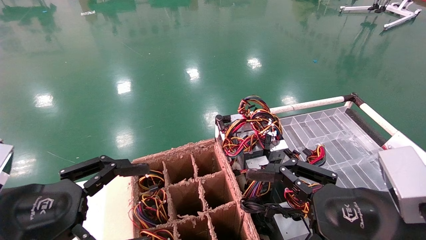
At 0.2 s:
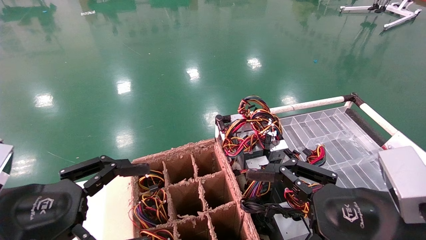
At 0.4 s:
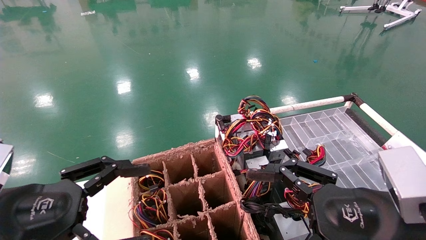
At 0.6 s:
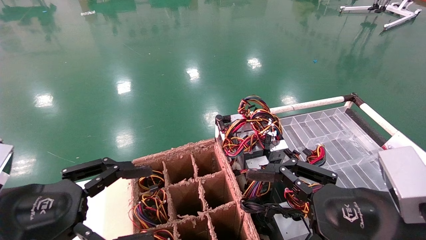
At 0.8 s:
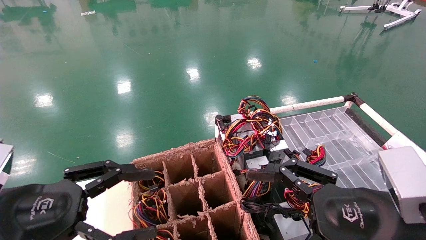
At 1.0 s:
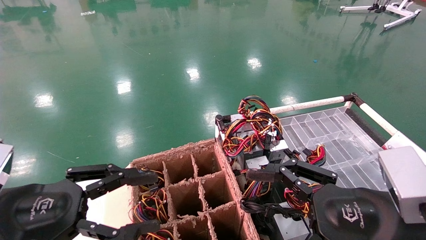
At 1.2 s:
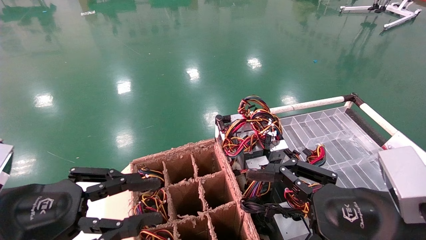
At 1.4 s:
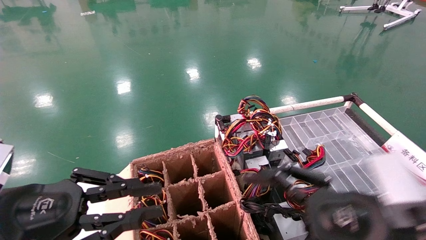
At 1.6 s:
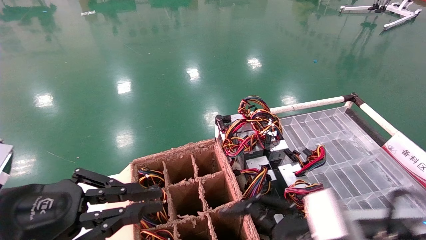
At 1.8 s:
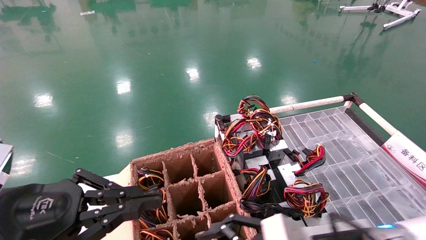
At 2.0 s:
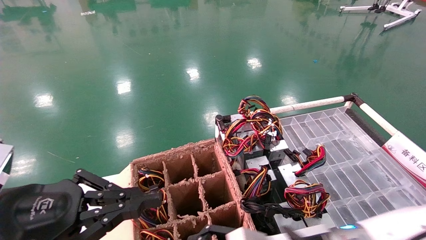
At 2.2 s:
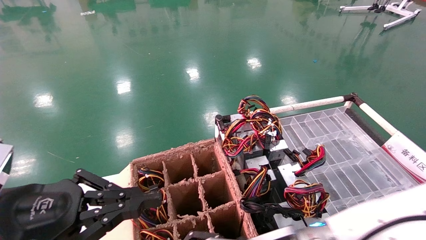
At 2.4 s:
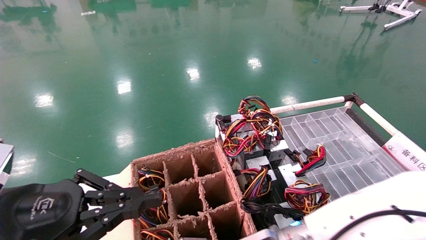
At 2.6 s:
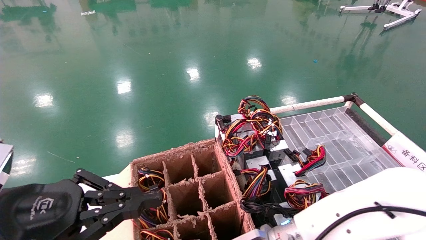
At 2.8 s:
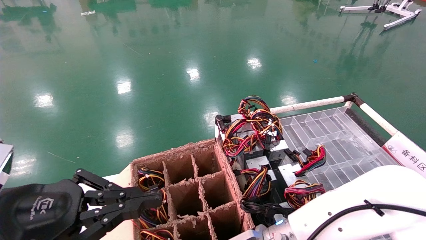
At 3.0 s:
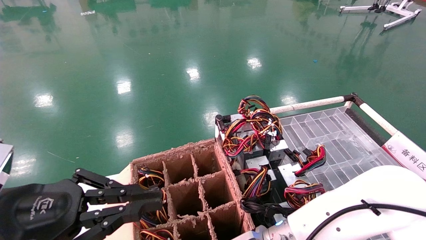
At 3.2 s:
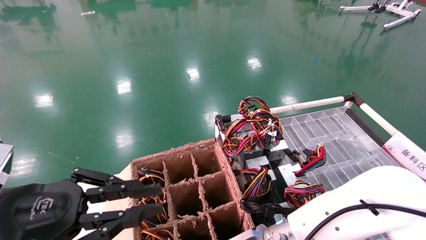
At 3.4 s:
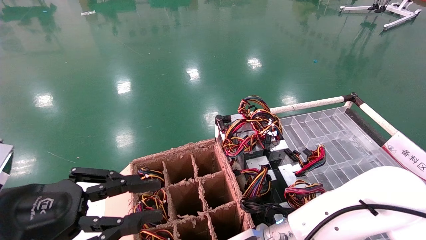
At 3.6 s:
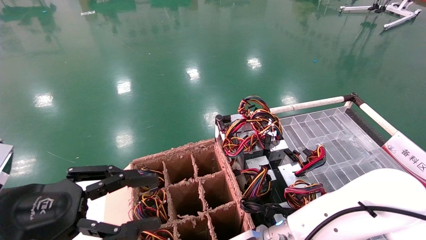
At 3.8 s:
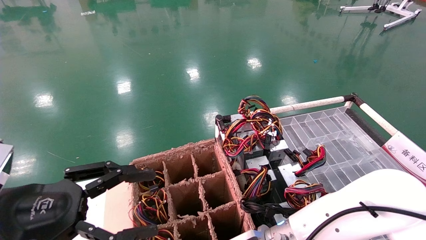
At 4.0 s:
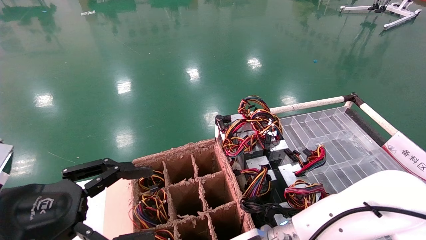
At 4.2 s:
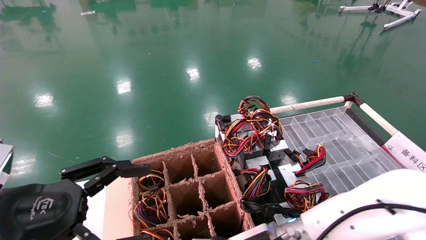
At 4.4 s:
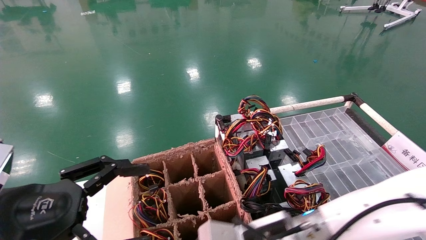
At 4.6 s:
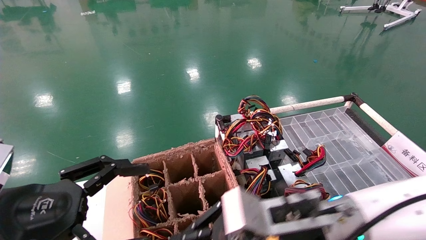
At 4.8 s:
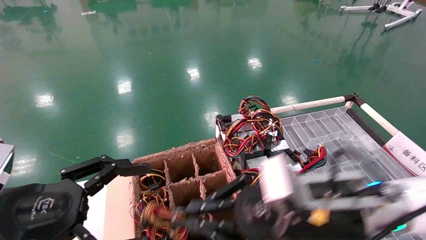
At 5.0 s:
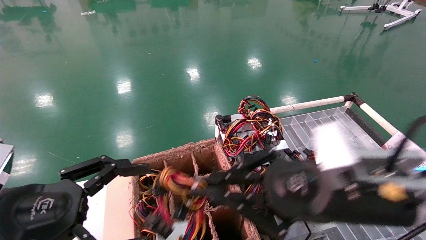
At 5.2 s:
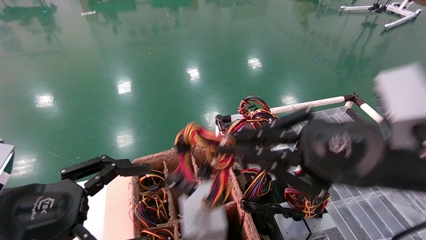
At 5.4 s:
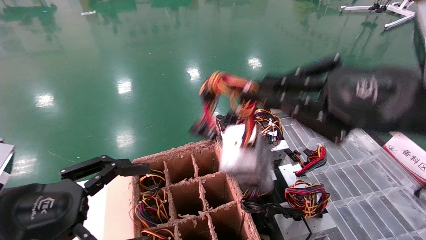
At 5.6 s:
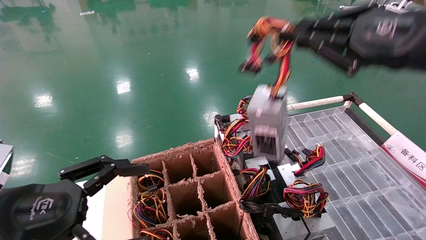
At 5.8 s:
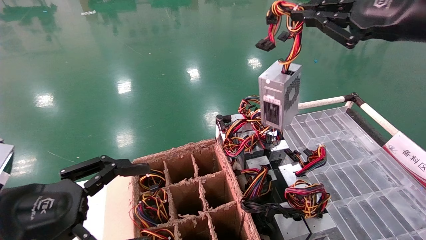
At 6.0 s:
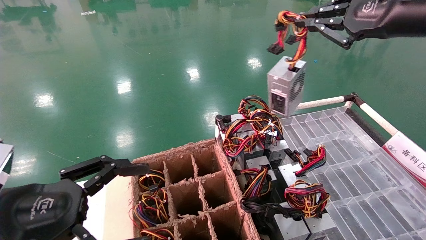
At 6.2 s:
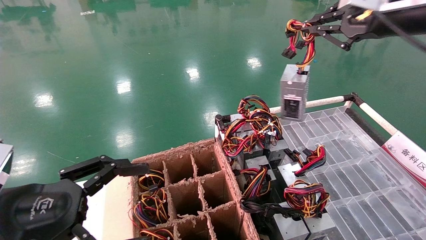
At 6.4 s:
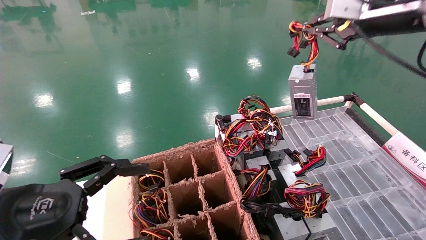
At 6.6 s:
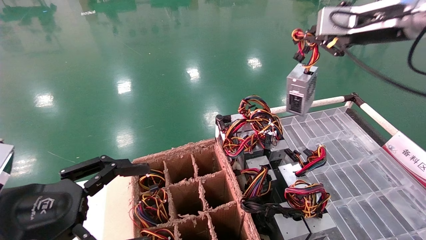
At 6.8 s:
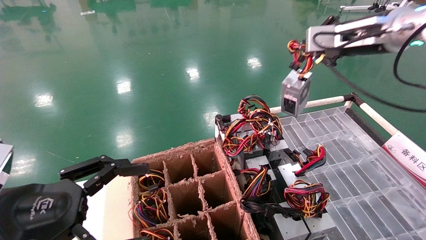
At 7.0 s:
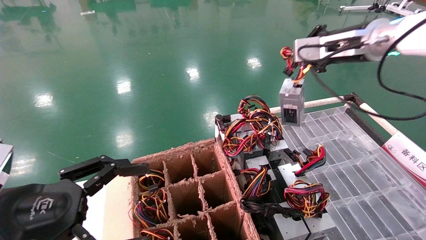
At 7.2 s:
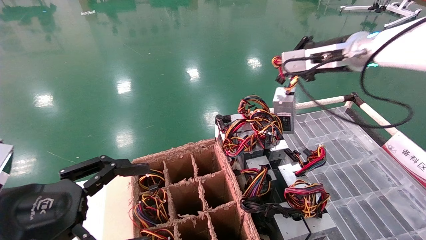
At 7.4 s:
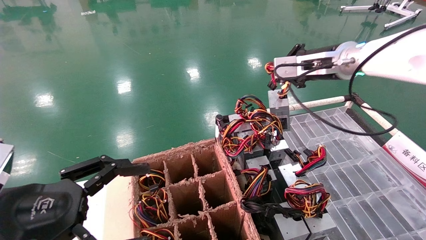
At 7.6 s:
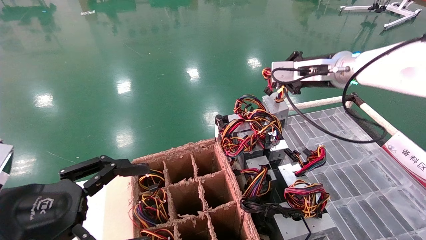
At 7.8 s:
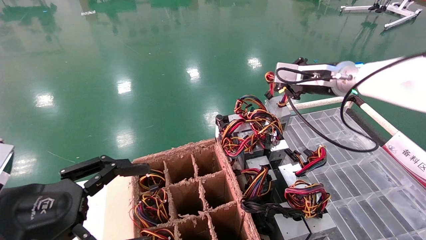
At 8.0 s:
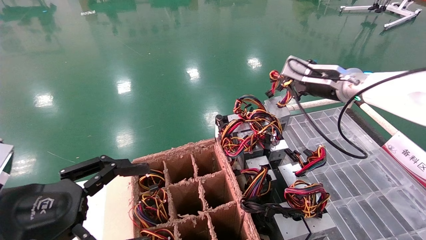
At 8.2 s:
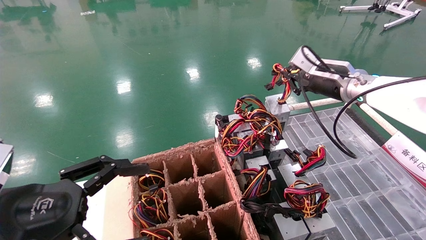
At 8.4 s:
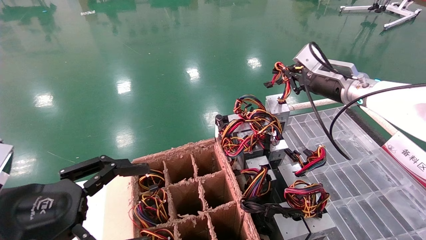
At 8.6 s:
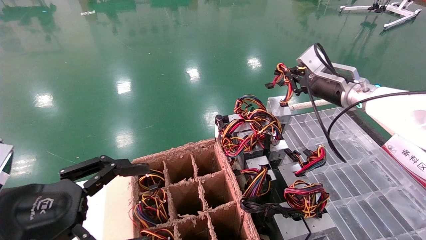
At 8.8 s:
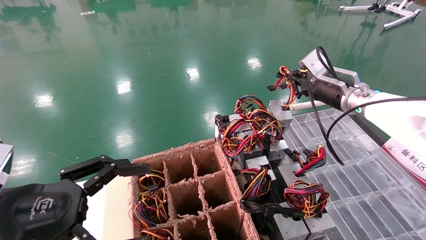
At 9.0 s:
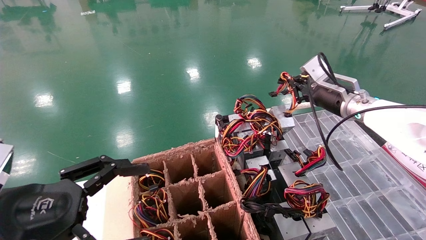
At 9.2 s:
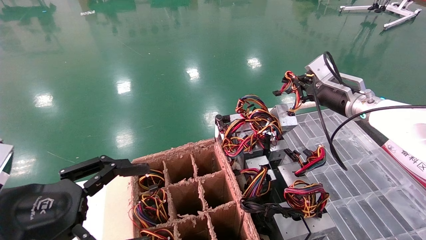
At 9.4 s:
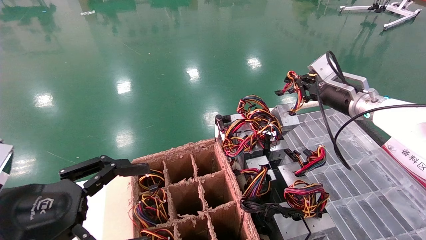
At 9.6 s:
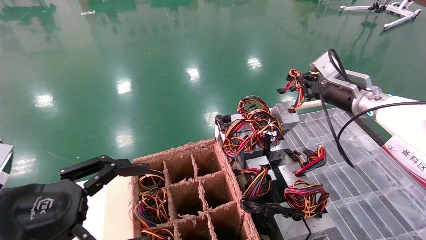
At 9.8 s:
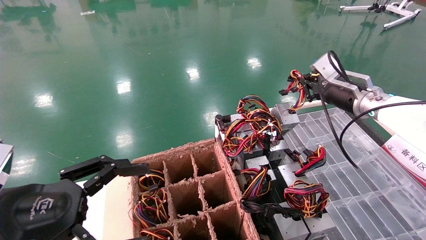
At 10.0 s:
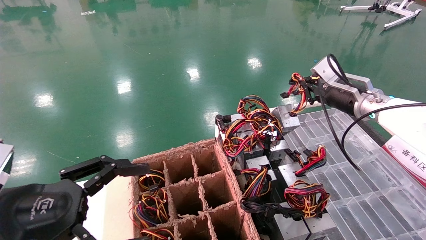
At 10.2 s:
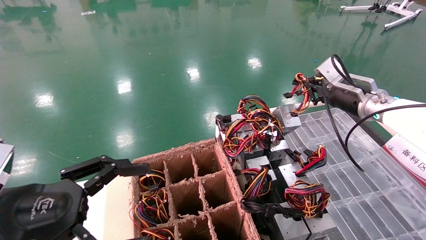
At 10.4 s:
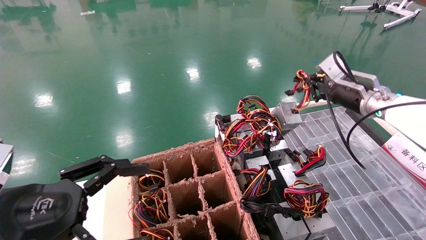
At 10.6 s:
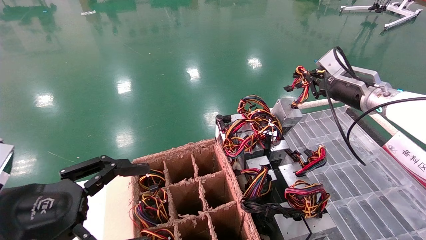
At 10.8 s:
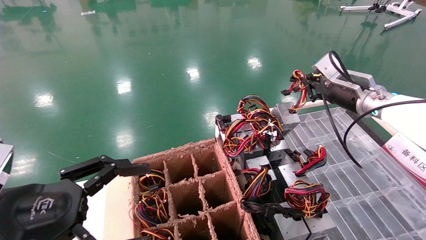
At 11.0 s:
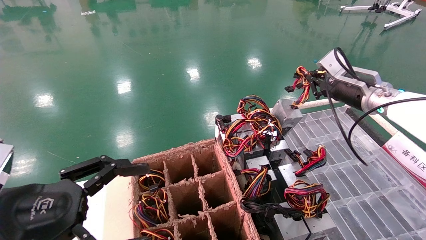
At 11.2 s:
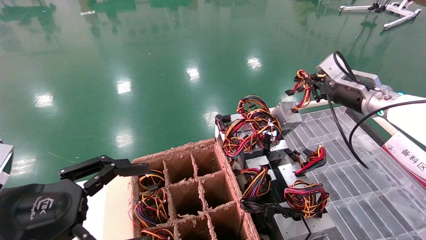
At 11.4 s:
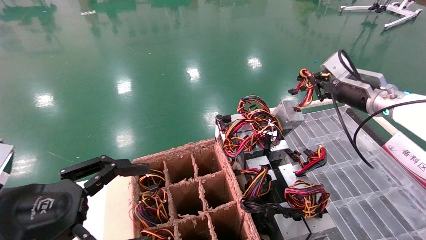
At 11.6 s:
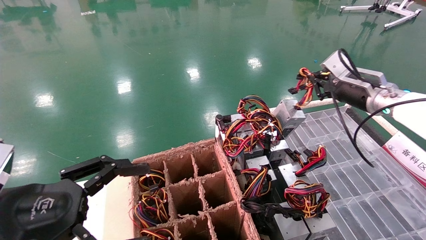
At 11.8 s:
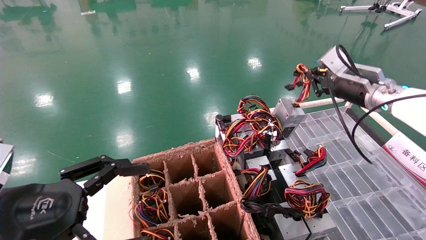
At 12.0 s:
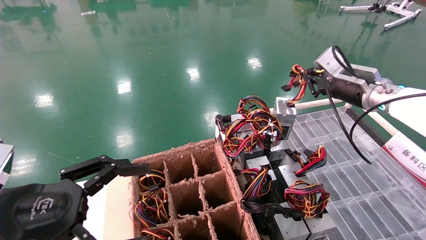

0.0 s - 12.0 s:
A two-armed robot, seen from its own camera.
Step, 2.2 s - 4.0 s: Grab and lift the power supply from the large box.
0.0 s - 1.6 s: The left gripper closes. Meanwhile the right gripper changes place by roughly 5 cm.
1.6 s - 3.0 s: The right gripper shifts approximately 15 cm to the left, forward and downward.
3.0 s - 4.4 s: The left gripper opens up; the right gripper ends up about 5 cm from where it was, and closes.
4.4 s - 6.0 s: The right gripper moves upward and to the right, about 35 cm.
6.0 s - 7.6 s: The right gripper goes about 15 cm forward and downward.
7.6 s - 9.0 s: The right gripper shifts roughly 5 cm downward.
9.0 s - 10.4 s: There are only small adjustments of the grippers.
10.4 s - 12.0 s: Neither gripper changes place.

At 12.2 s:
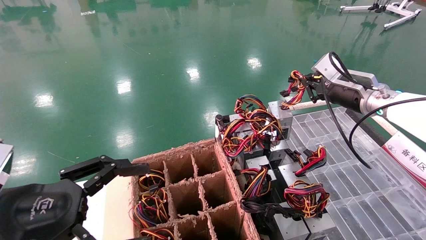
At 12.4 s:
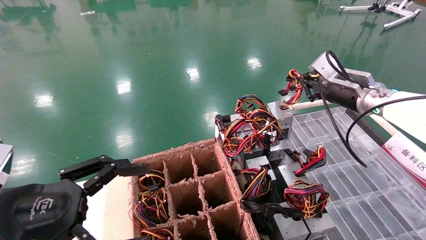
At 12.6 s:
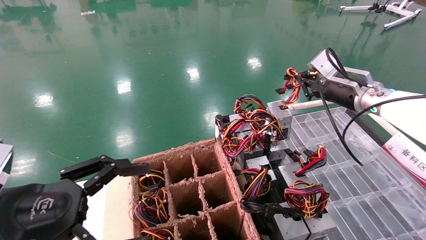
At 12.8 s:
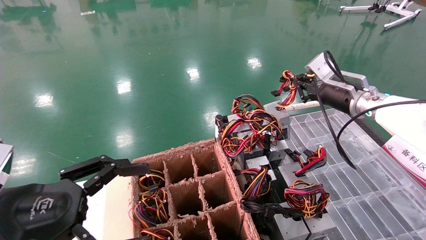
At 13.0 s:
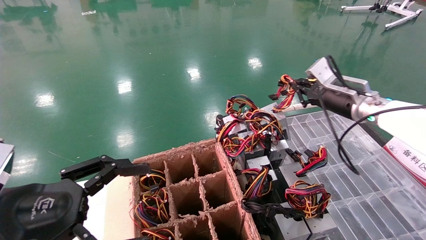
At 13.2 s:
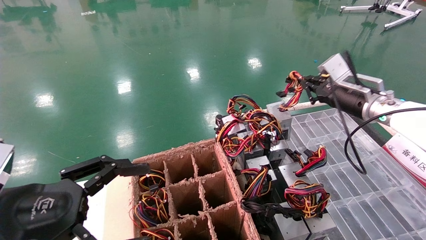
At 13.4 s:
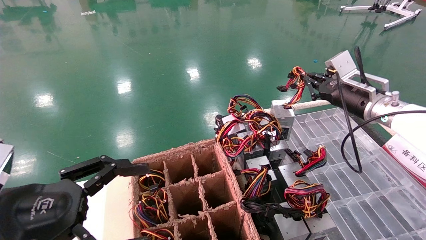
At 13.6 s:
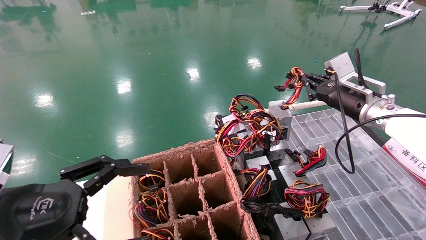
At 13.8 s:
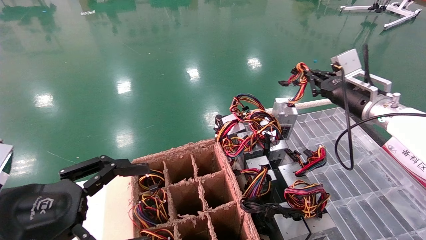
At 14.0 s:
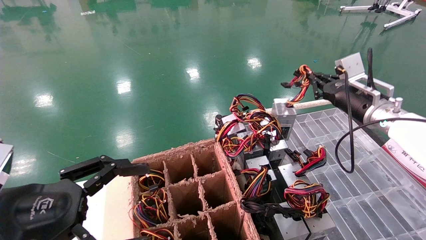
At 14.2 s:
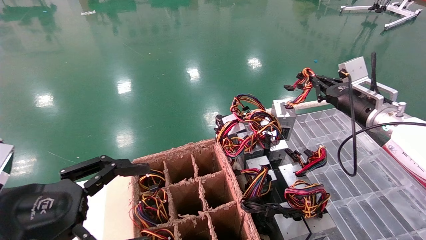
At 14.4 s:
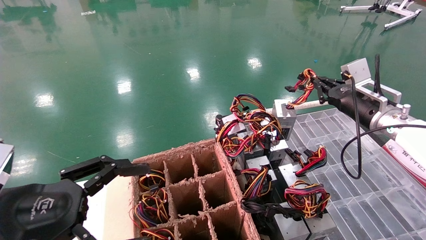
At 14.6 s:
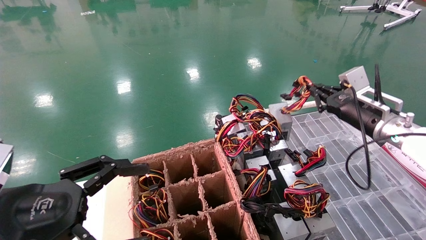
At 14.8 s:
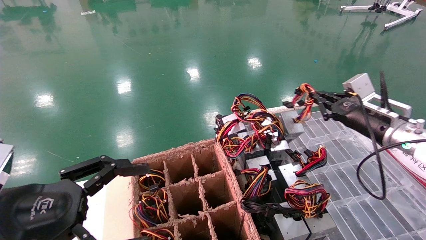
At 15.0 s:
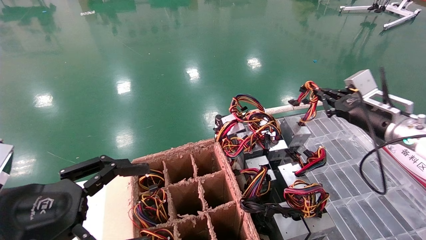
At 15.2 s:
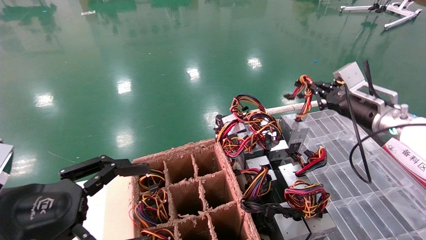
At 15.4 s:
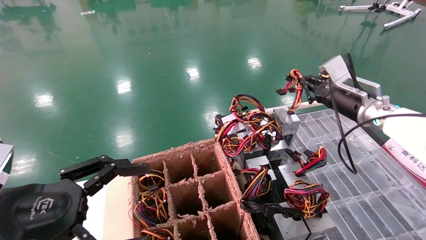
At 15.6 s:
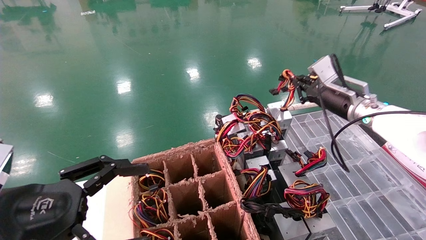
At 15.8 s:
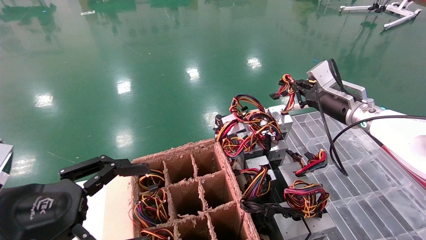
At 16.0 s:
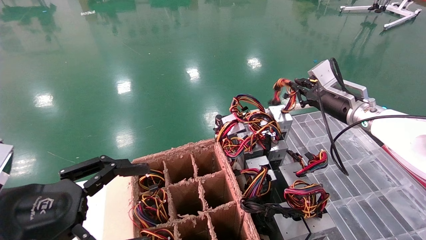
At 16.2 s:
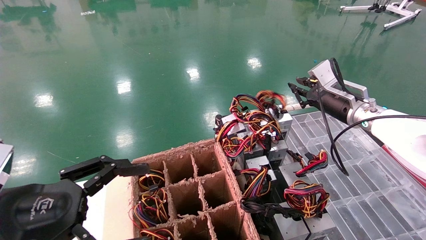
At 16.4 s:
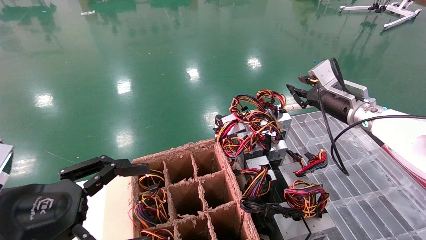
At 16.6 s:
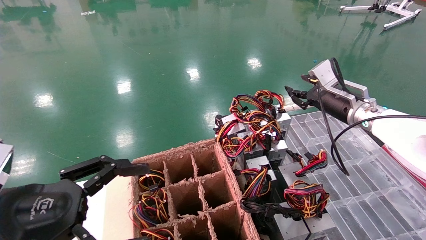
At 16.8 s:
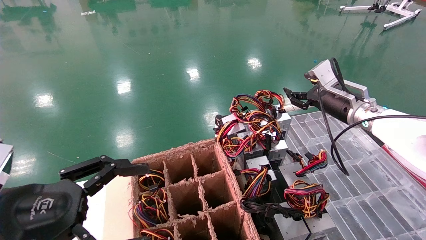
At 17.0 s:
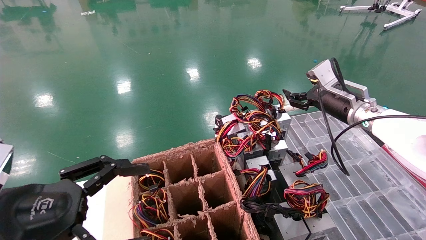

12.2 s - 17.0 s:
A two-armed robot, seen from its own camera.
Step, 12.2 s - 16.2 s: Place the power supply on the operating table.
13.8 s - 15.4 s: The grippers make only small movements.
15.4 s - 17.0 s: The right gripper opens its fingers.
